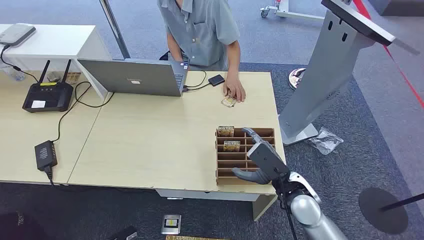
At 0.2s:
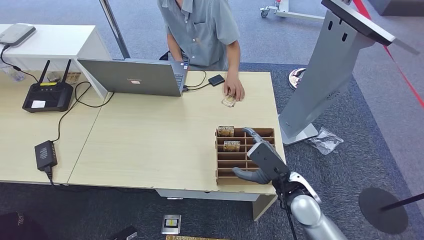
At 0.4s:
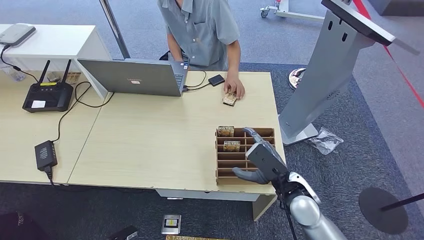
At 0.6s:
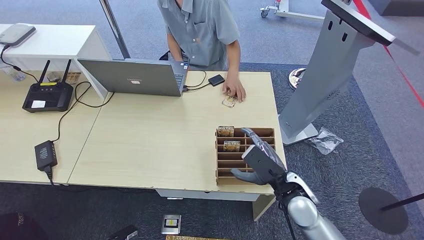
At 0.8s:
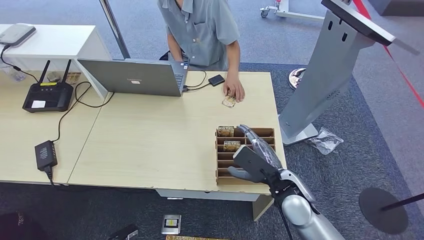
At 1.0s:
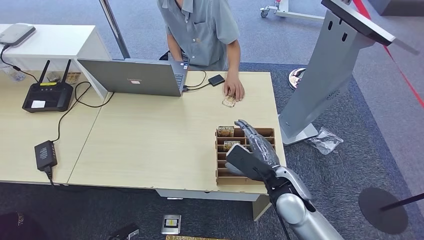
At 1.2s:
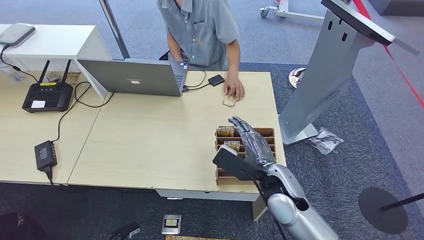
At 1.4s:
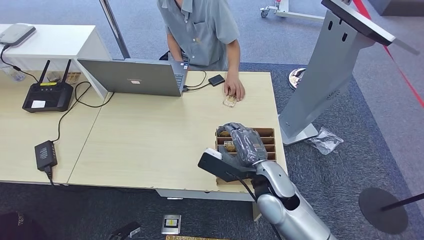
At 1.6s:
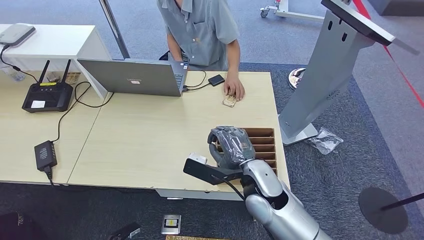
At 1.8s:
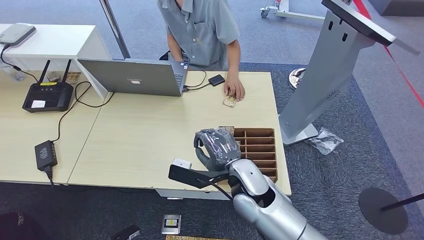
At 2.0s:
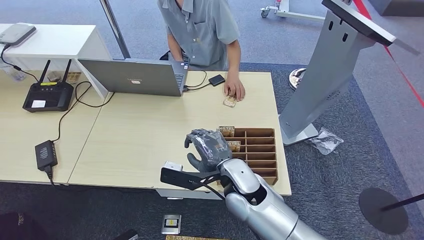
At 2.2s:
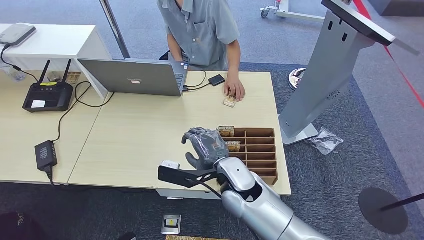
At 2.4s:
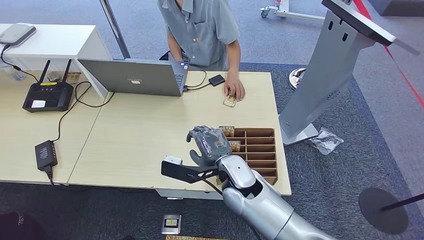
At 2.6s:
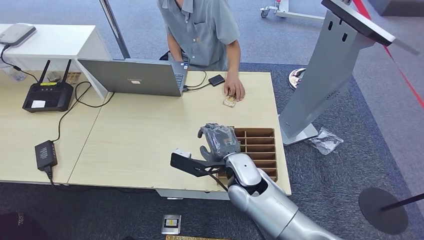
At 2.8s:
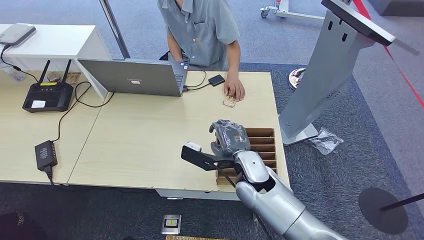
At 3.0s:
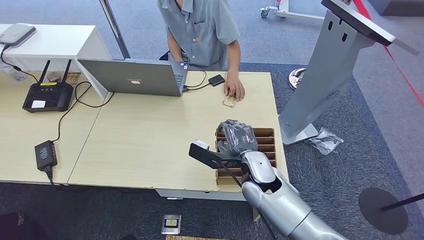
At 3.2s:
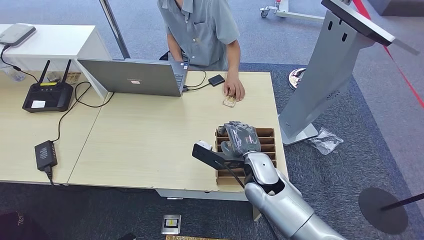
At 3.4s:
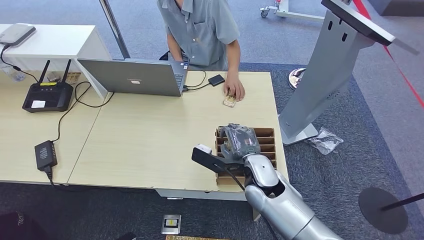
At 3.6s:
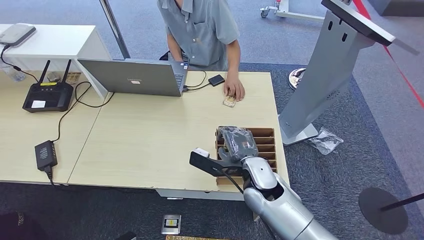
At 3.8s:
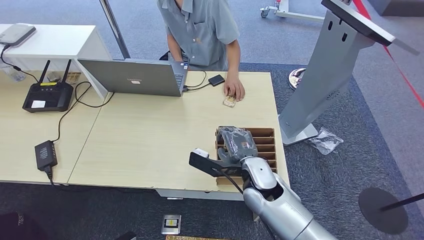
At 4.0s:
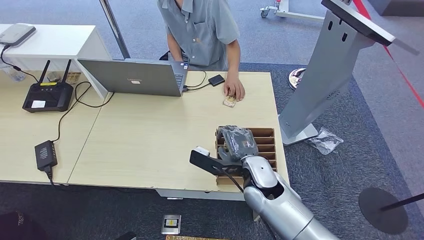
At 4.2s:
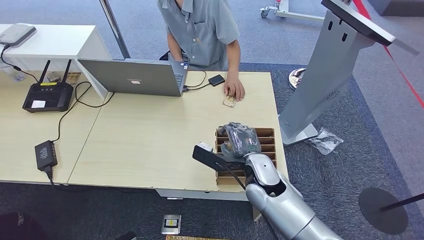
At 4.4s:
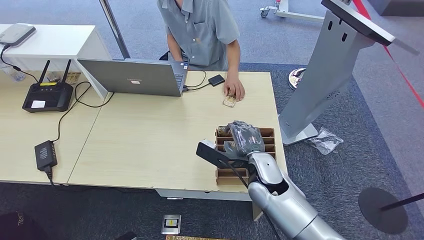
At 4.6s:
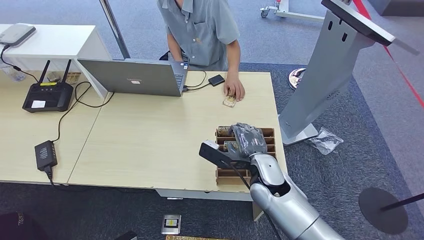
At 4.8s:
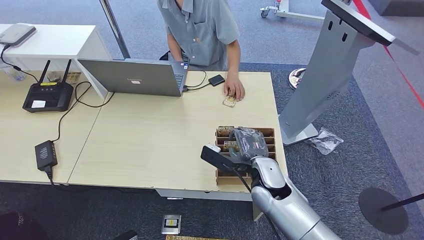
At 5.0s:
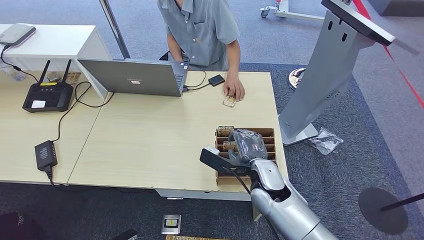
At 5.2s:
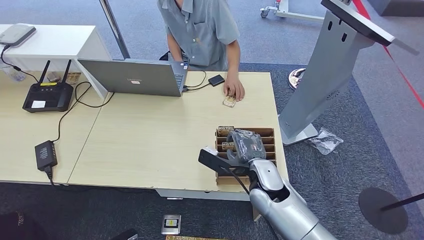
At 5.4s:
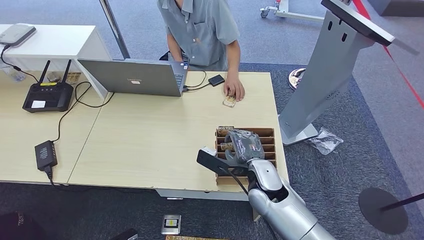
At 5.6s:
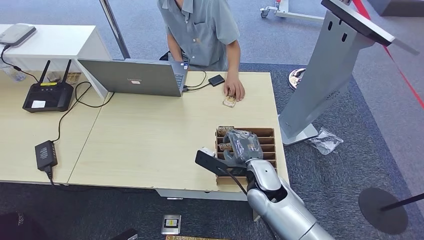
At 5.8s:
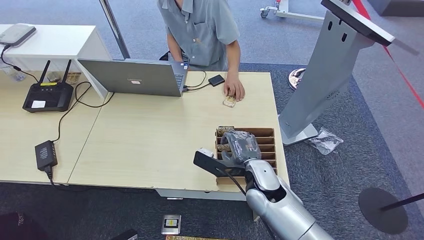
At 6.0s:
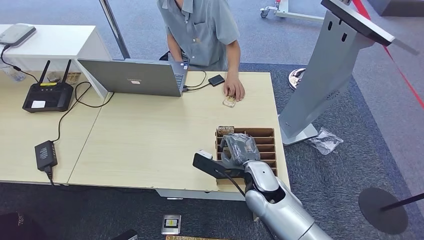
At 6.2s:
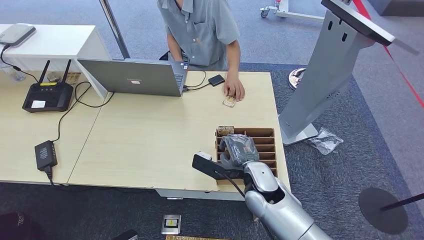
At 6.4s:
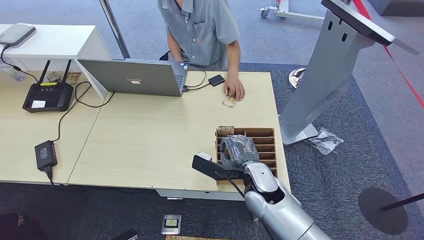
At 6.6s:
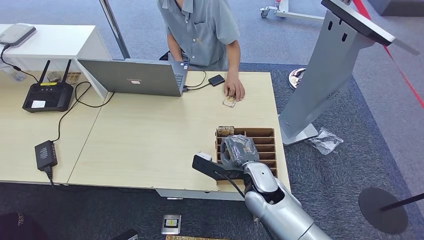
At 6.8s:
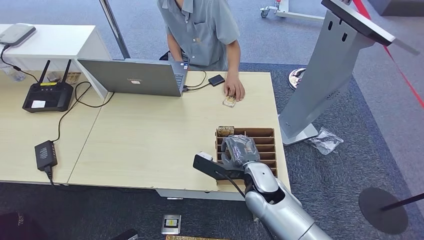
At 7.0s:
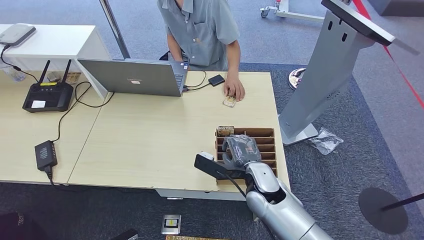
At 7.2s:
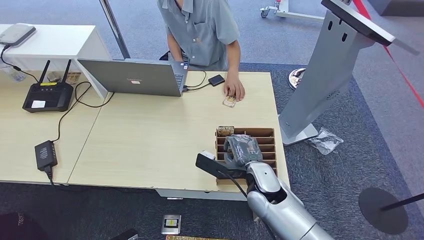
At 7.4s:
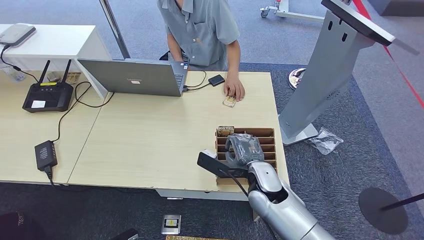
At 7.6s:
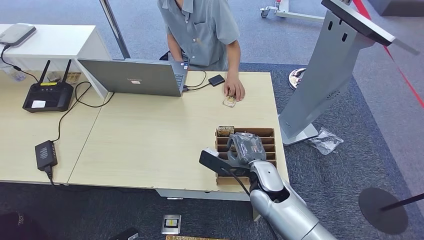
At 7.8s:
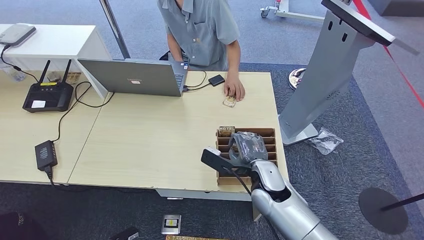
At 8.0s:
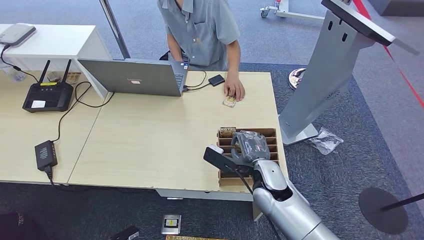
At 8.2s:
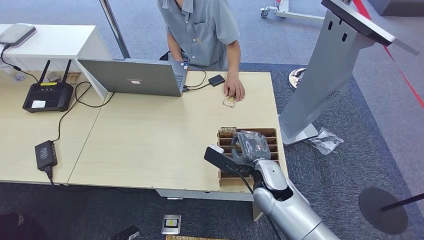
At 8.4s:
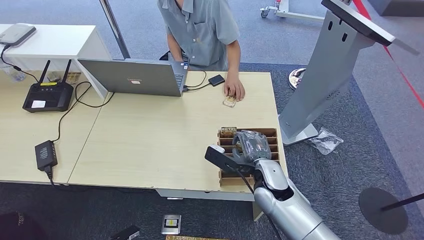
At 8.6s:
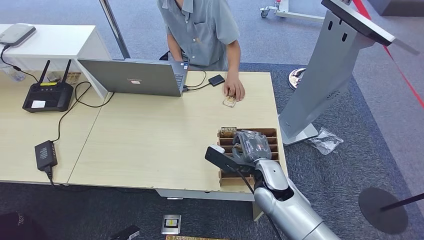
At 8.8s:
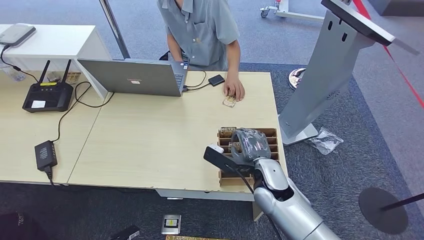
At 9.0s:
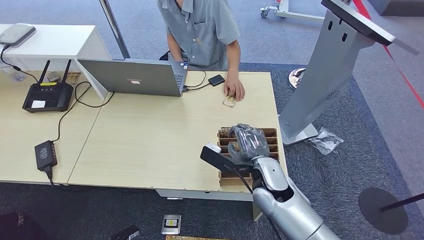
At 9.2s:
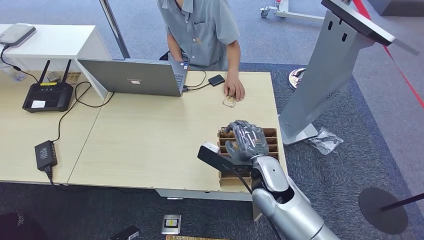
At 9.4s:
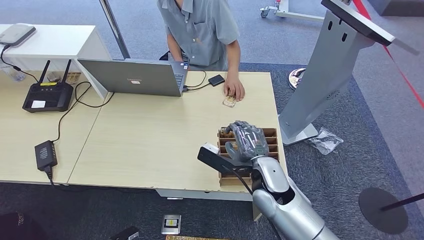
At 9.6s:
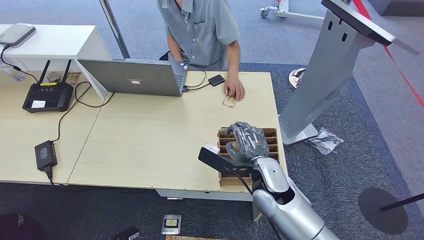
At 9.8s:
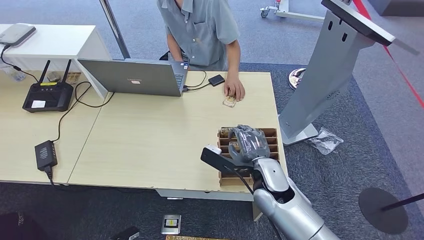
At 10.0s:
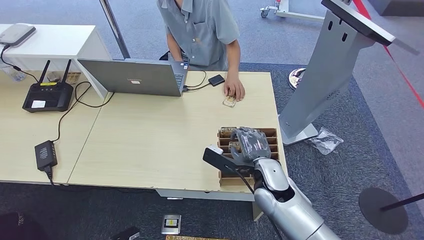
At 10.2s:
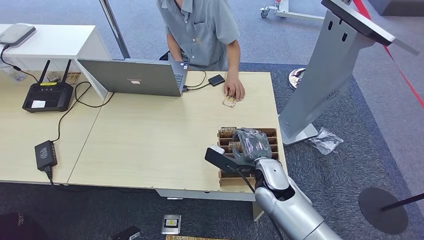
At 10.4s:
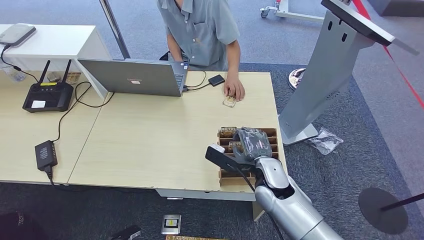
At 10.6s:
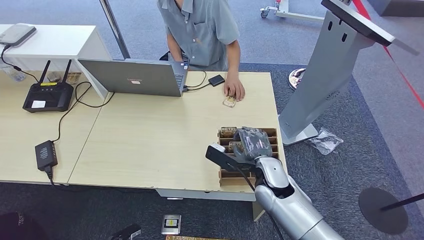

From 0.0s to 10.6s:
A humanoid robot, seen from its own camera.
From 1.6s to 9.0s: The hands make only small movements.
From 9.0s to 10.6s: The hands stay close to where they were, moving slightly.

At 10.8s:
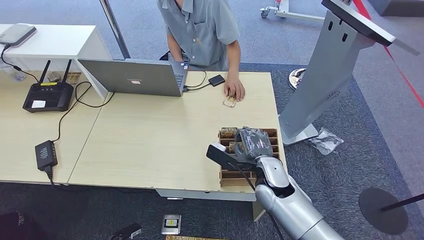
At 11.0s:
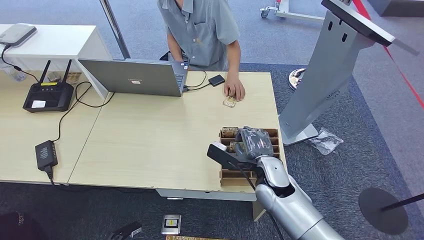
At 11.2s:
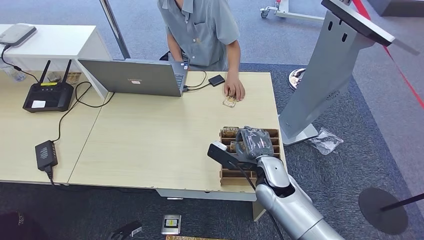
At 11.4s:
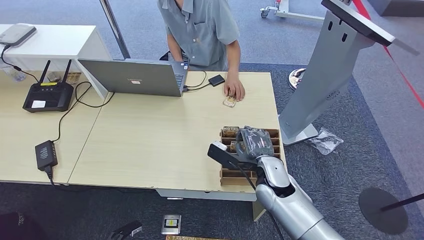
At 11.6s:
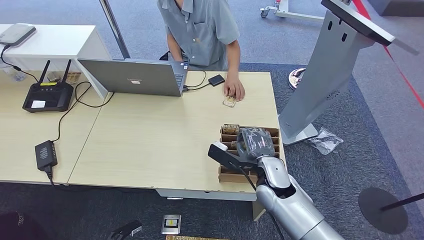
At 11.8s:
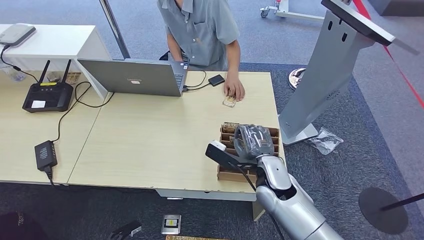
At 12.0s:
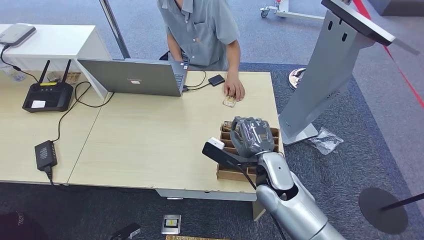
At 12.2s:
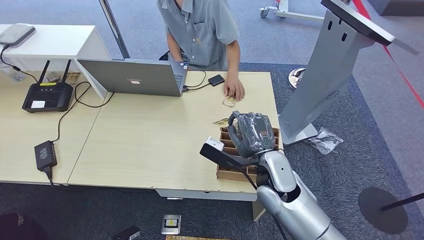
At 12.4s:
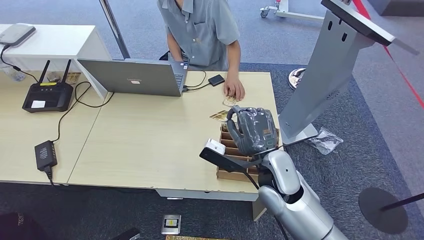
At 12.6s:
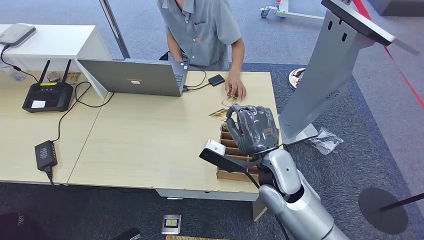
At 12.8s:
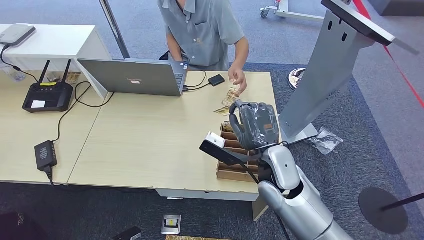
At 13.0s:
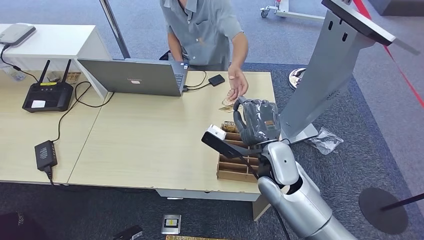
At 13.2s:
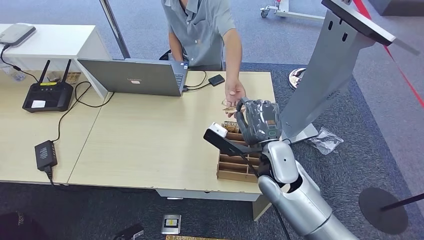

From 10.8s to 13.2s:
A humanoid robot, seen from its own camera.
Step, from 12.8s to 13.2s: Hand the room card to the target.
From 10.8s to 12.0s: The hands make only small movements.
From 12.0s to 13.2s: The hands stay close to where they were, moving slightly.
